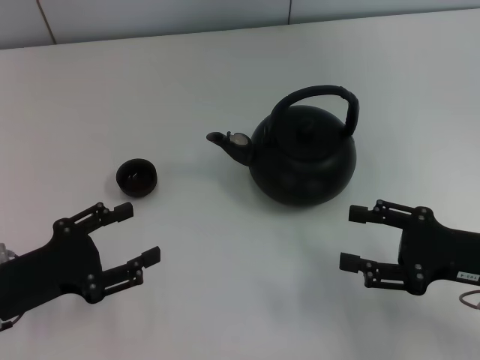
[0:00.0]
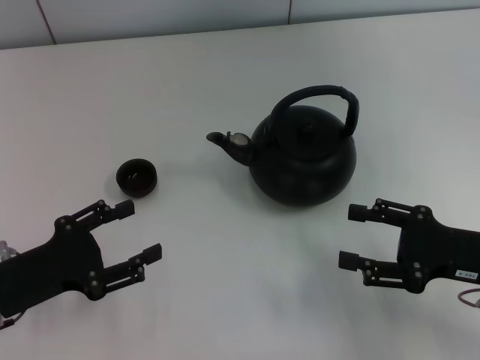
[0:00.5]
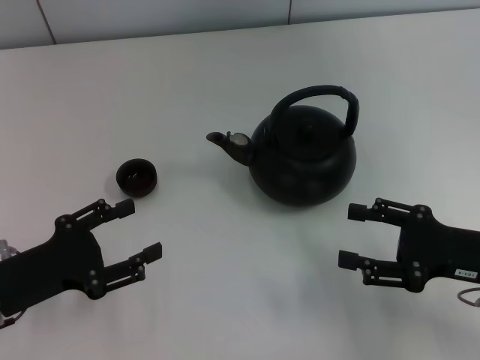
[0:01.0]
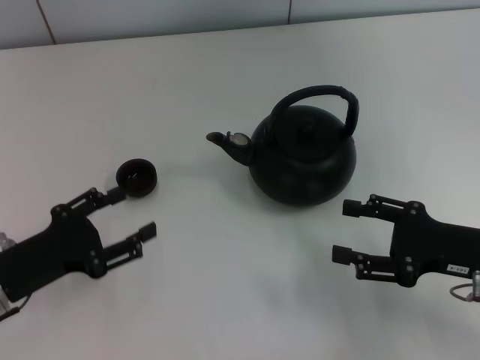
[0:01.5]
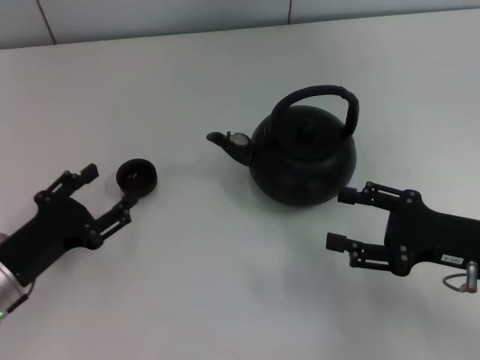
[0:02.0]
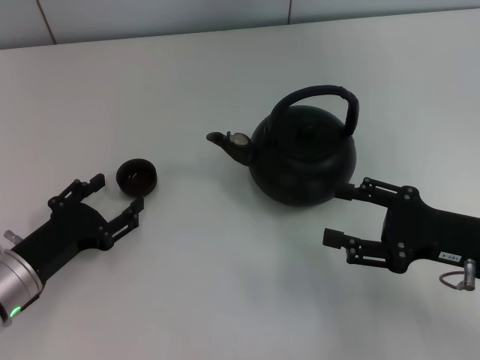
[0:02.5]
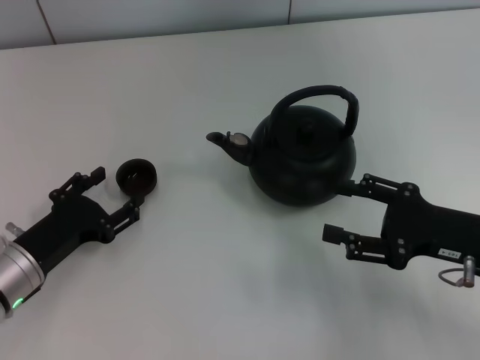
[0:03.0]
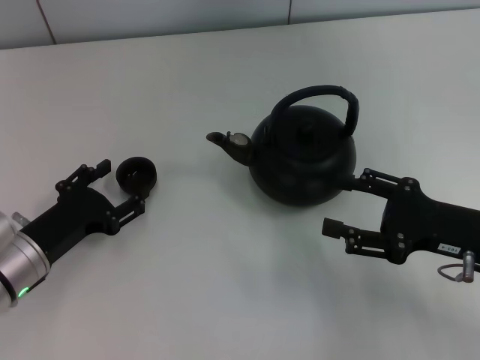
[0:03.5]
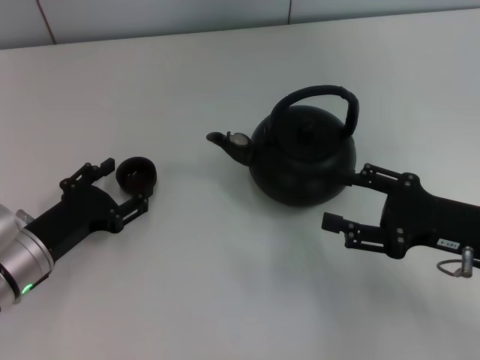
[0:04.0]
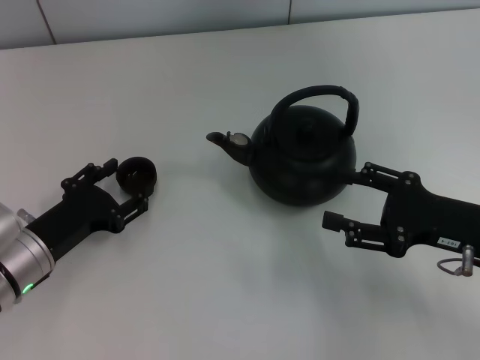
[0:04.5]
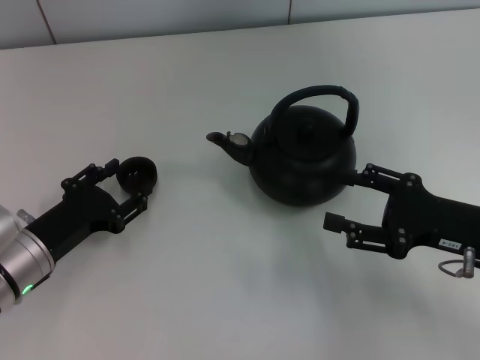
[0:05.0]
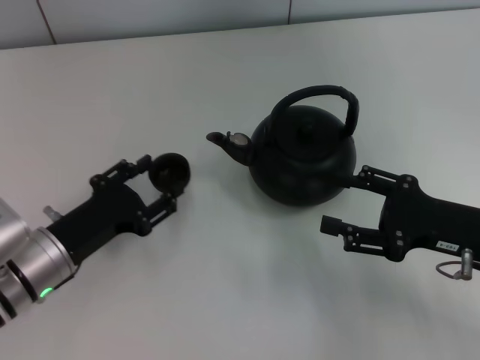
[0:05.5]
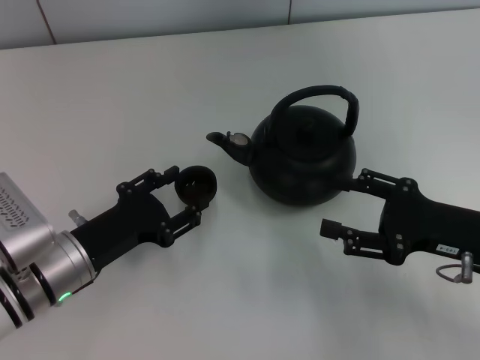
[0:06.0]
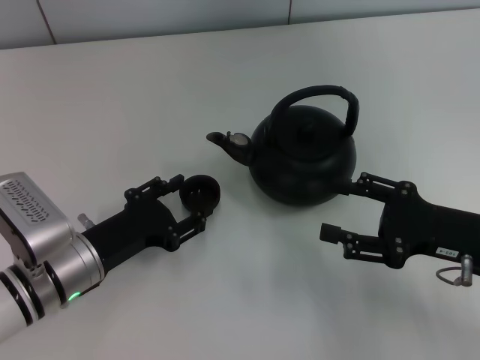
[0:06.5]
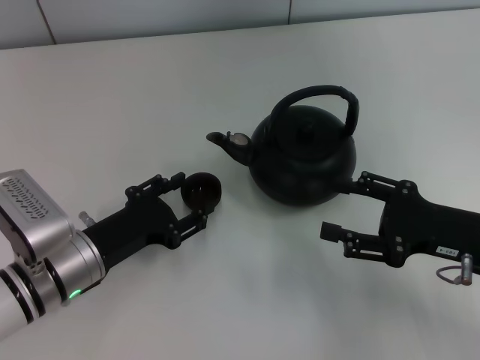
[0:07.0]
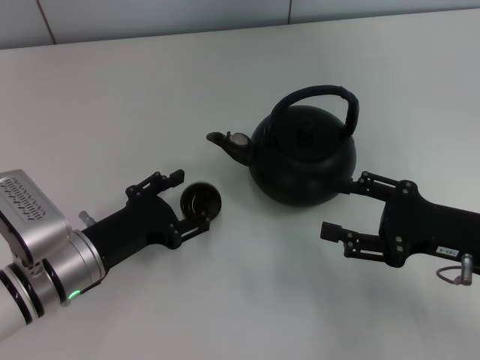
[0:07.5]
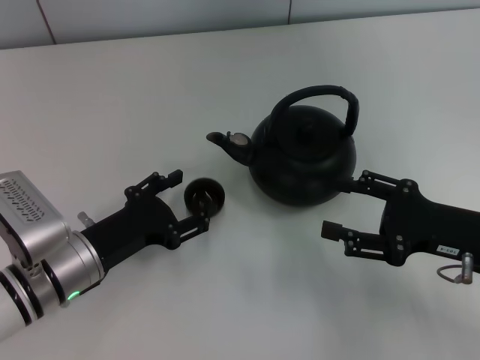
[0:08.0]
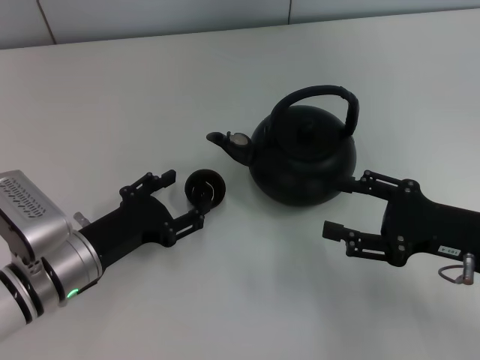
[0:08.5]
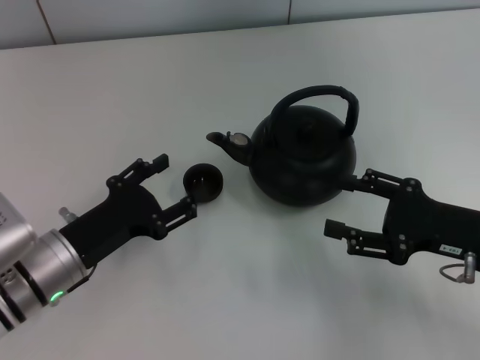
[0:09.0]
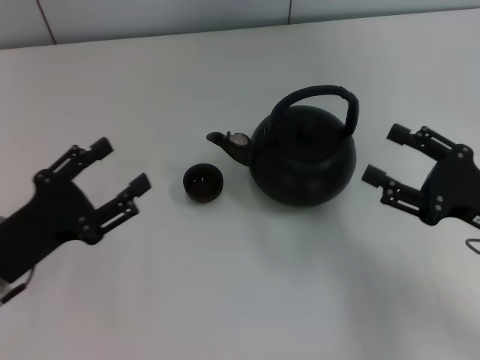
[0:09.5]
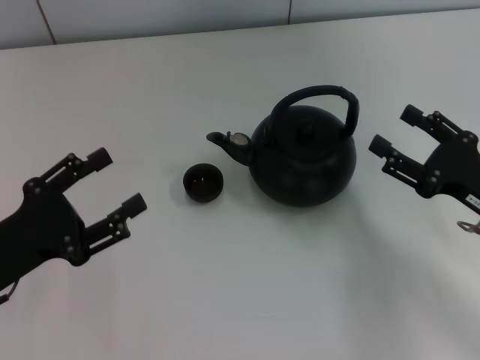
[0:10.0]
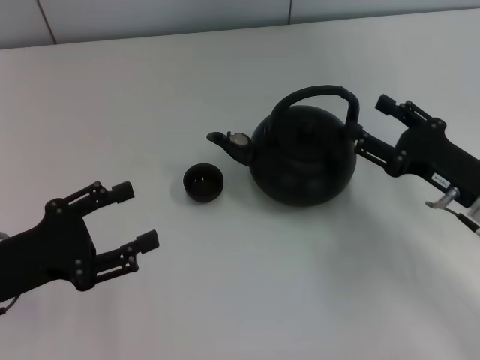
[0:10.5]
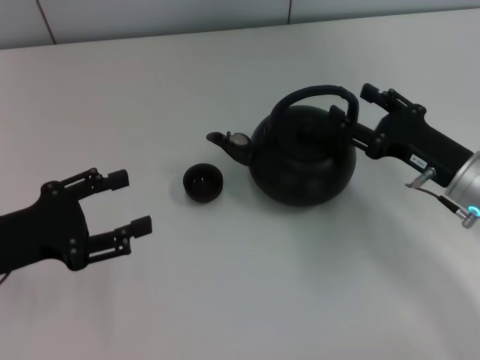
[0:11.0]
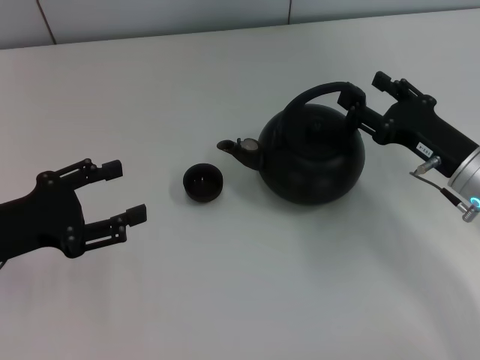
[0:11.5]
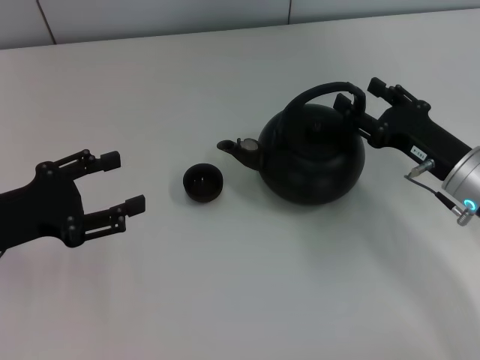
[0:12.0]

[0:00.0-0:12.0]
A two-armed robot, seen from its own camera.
Task of the whole recording: Grasp the handle of the teapot with one hand and pour tea into the teacup.
Step, 0:00.0 to 0:05.0: Pick up the teacup with the left gripper.
Step, 0:05.5 to 0:08.5: Place the teacup in the center of view with the left gripper.
0:02.0 to 0:04.0: The grippers make only small movements.
0:04.0 to 0:06.0: The left gripper closes up.
0:06.0 to 0:08.0: The left gripper opens.
0:08.0 to 0:10.0: The left gripper travels to the left and upward by roughly 10 cm.
0:10.0 to 0:12.0: The right gripper is displaced forward by about 5 cm, while the left gripper changes place by some 5 cm.

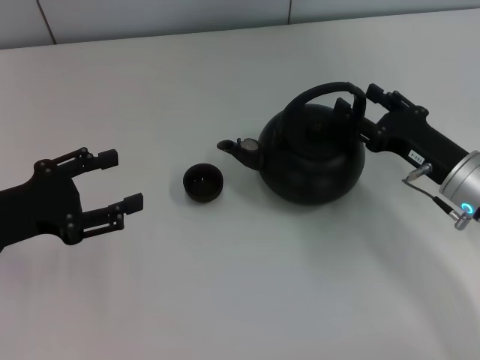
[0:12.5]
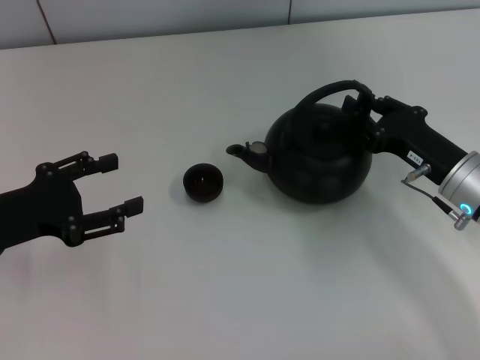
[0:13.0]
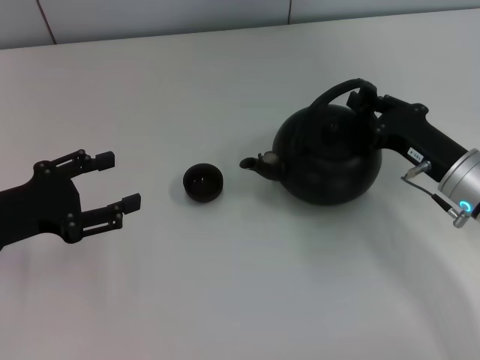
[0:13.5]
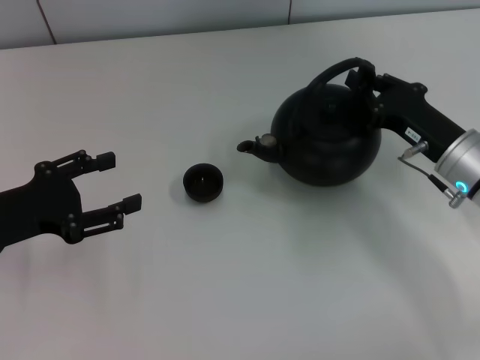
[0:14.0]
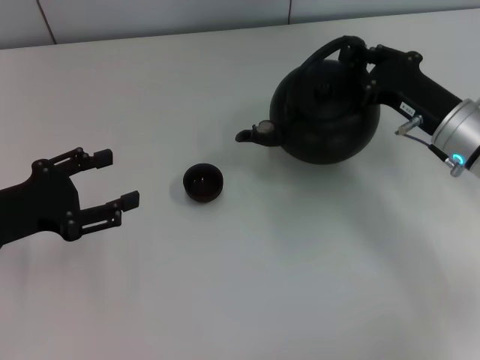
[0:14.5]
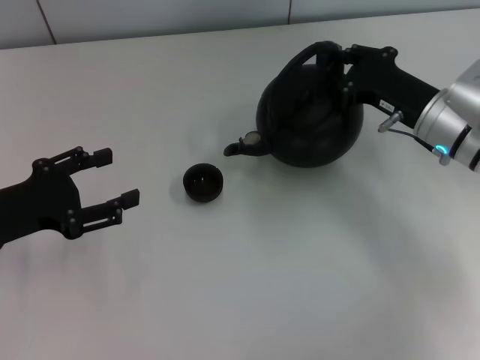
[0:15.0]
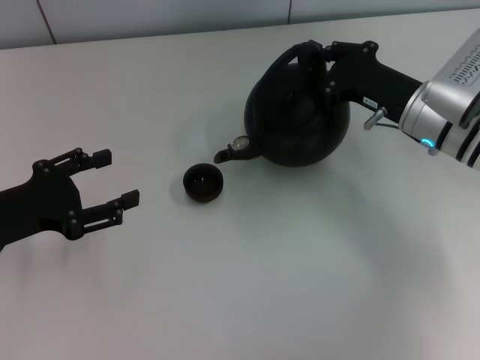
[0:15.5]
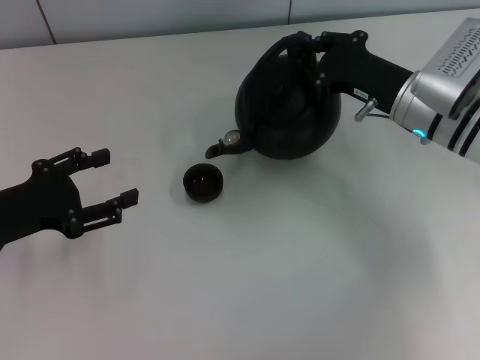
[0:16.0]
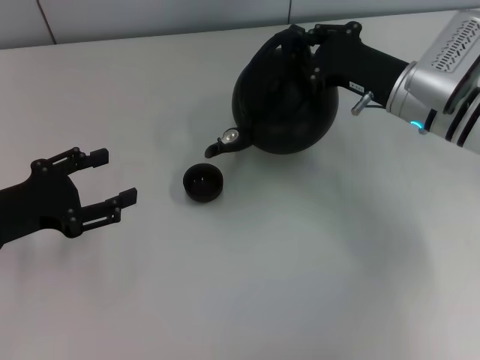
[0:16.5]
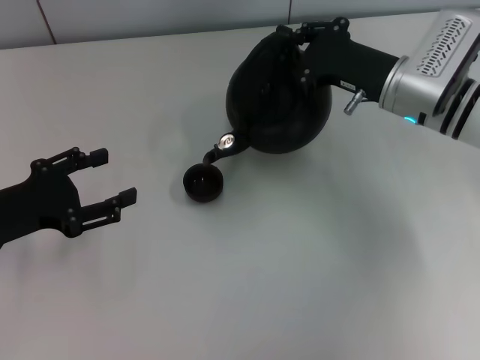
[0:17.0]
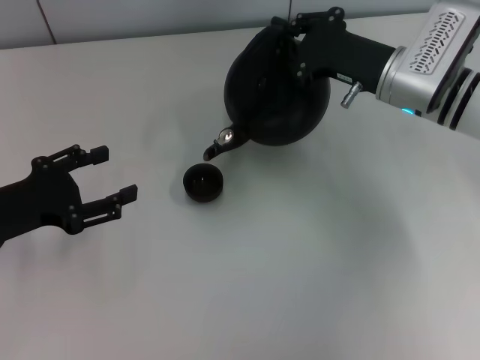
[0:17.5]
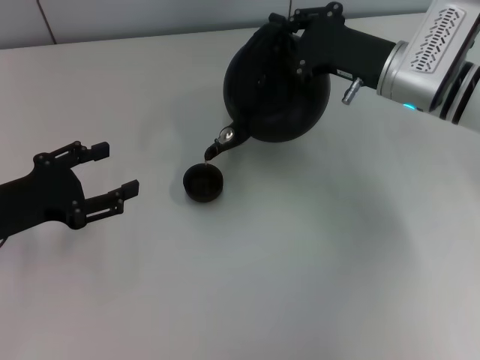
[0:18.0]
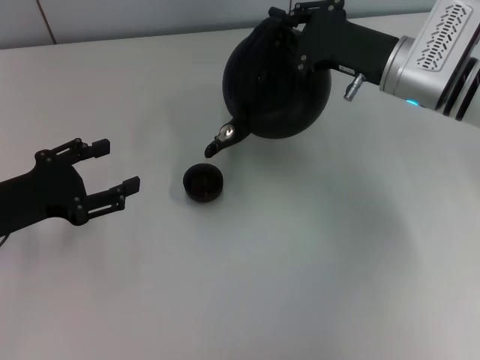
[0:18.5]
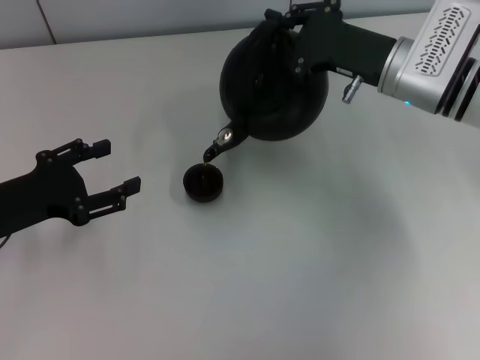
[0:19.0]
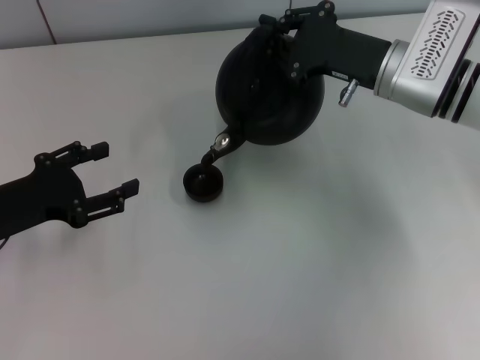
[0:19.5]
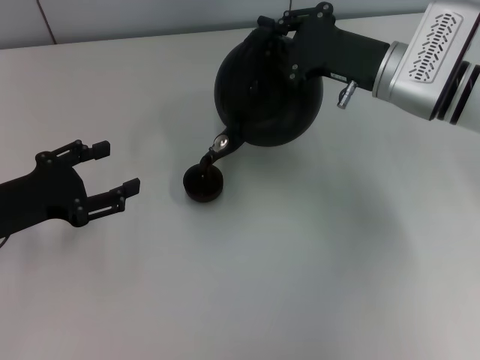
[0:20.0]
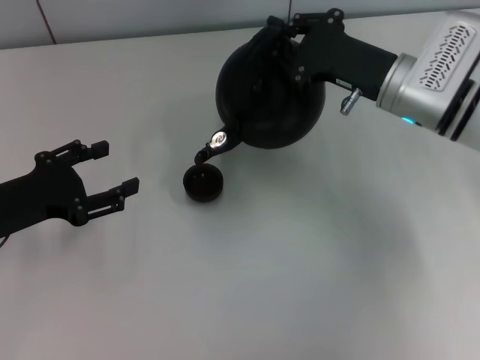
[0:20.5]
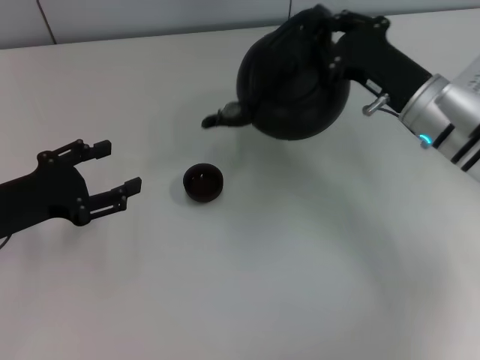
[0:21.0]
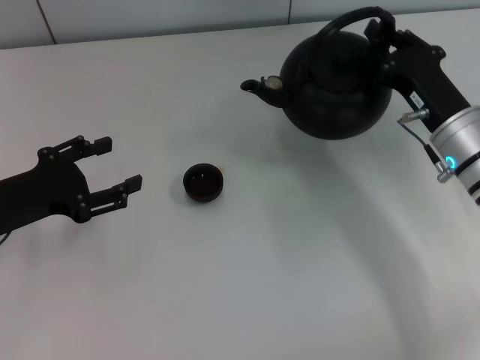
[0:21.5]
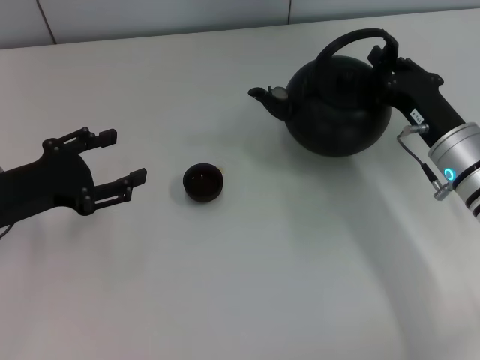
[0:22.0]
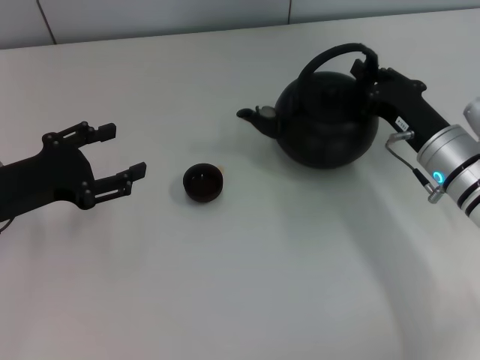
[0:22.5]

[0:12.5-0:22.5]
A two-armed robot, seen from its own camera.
Task of the whole recording: Grasp the handle of the teapot with one hand and pour tea into the teacup.
0:12.5 to 0:14.5: The right gripper shifts by some 5 cm, and closes up.
0:14.5 to 0:16.5: The right gripper ends up approximately 5 cm from where it was.
0:16.5 to 0:20.5: There are only small adjustments of the grippers.
0:20.5 to 0:22.5: The right gripper goes roughly 10 cm downward and backward.

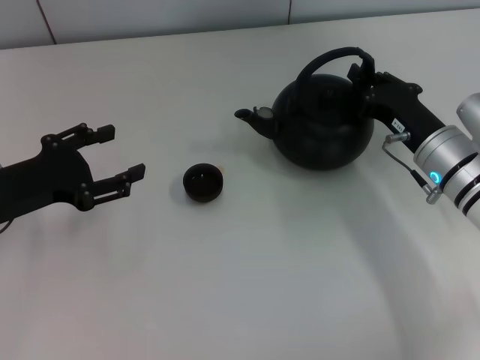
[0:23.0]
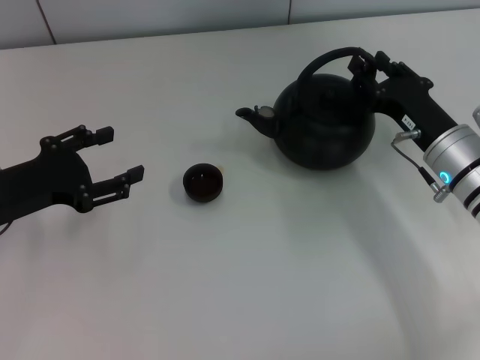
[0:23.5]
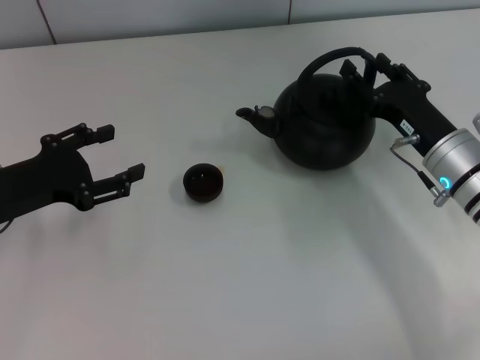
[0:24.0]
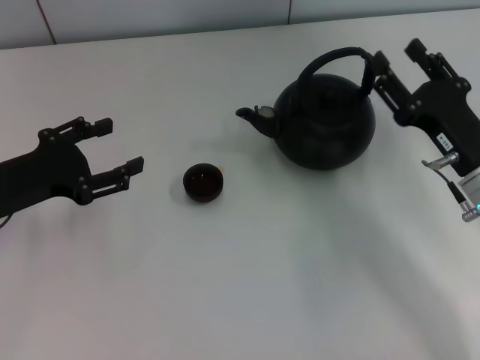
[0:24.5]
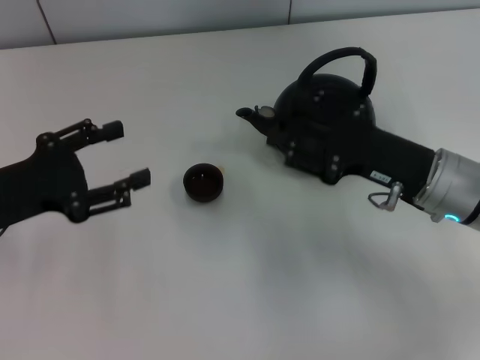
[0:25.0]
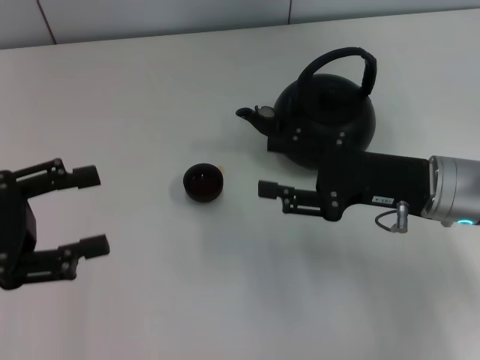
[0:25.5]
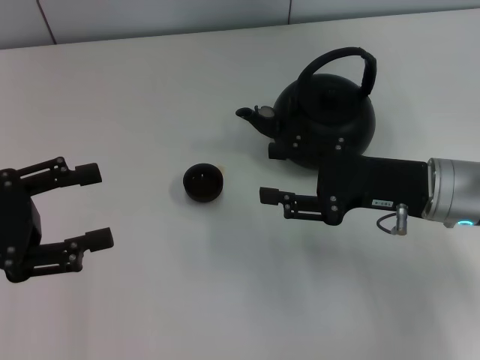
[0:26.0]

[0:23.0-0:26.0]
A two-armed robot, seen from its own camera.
Task of the whole recording: Grasp the handle of the teapot with one hand and pour tea into the teacup.
0:23.0 to 0:24.5: The right gripper is displaced backward by some 5 cm, and opens.
0:24.5 to 0:26.0: The left gripper shifts by some 10 cm.
